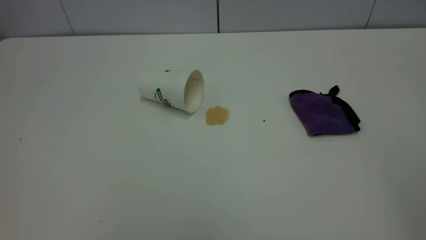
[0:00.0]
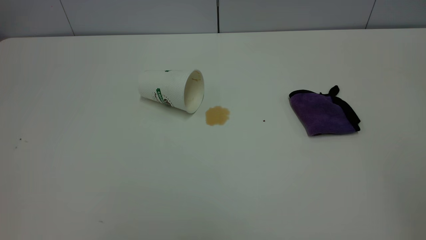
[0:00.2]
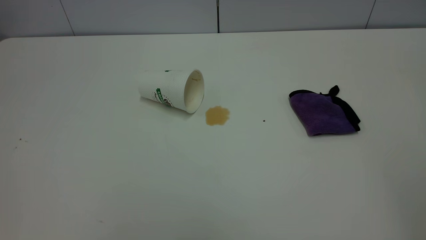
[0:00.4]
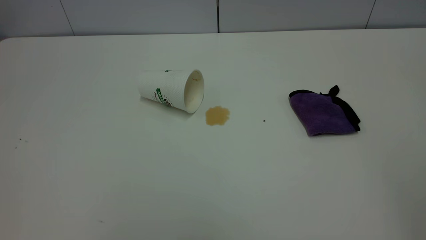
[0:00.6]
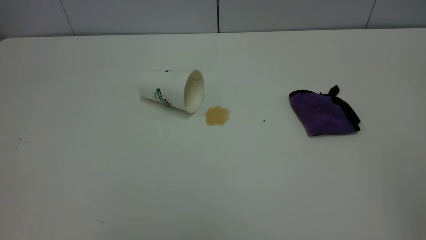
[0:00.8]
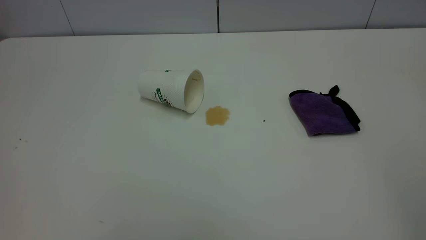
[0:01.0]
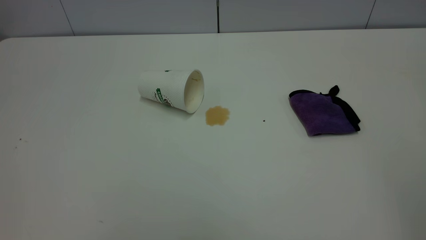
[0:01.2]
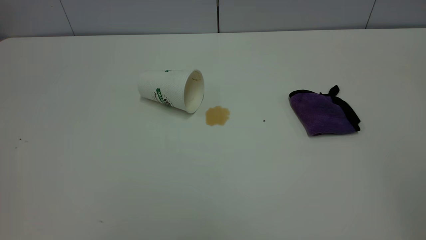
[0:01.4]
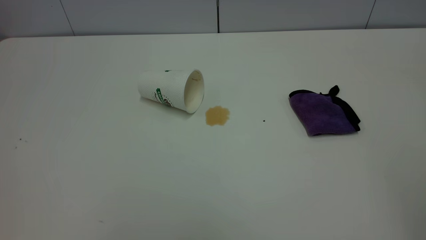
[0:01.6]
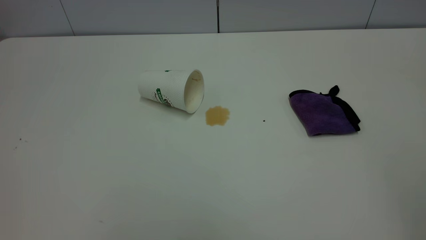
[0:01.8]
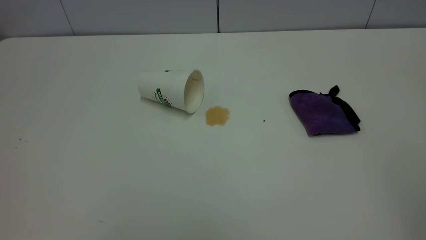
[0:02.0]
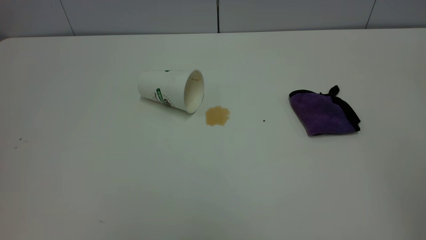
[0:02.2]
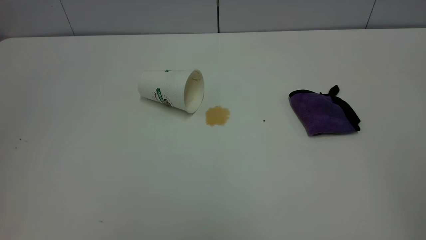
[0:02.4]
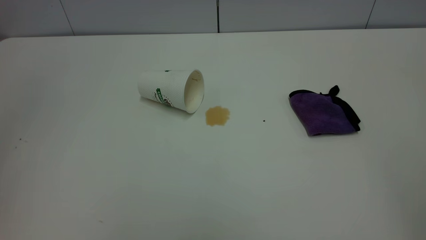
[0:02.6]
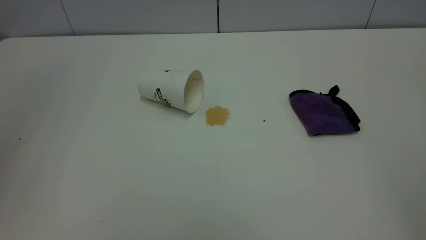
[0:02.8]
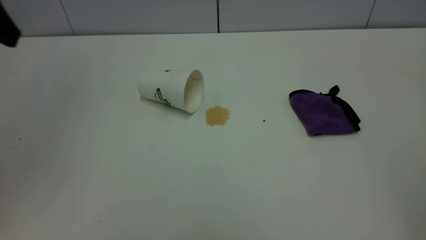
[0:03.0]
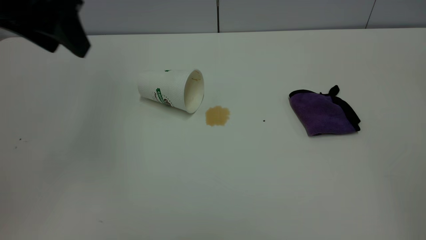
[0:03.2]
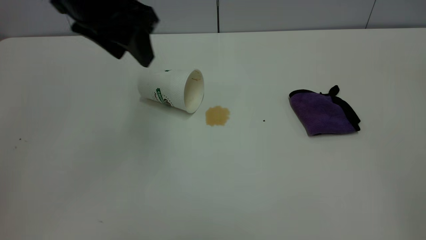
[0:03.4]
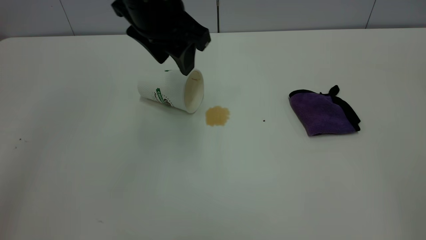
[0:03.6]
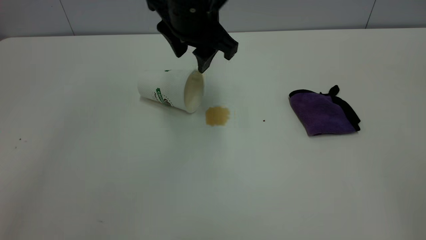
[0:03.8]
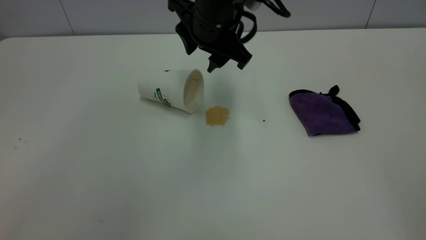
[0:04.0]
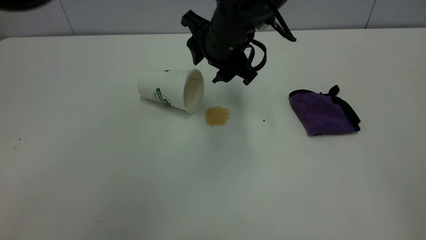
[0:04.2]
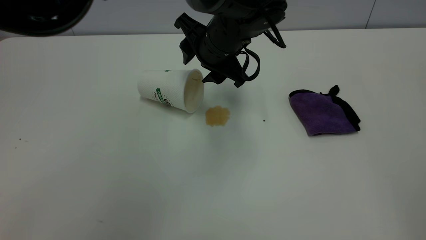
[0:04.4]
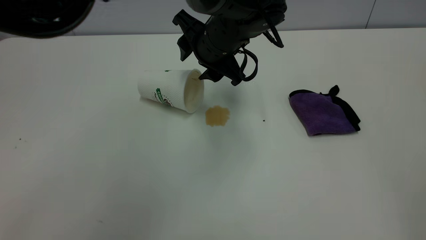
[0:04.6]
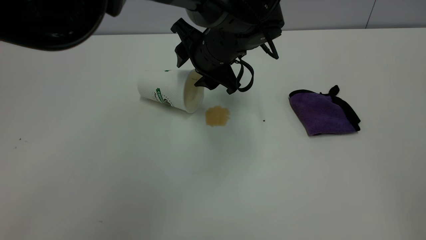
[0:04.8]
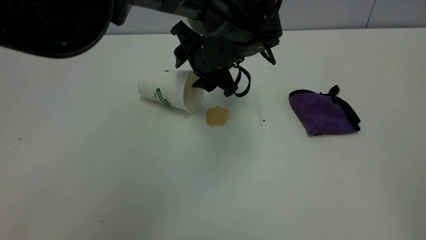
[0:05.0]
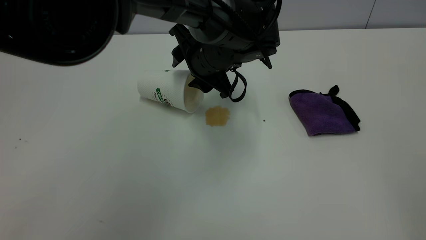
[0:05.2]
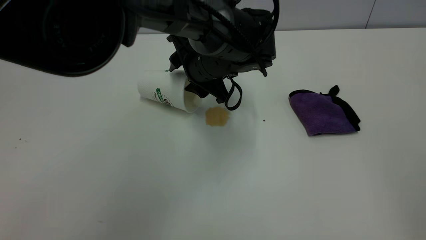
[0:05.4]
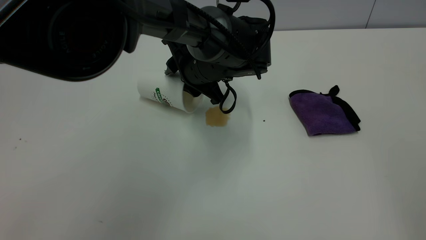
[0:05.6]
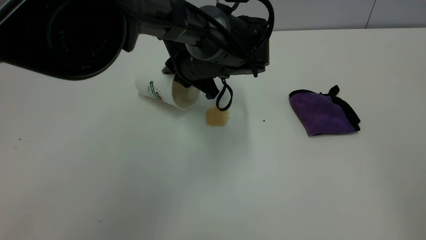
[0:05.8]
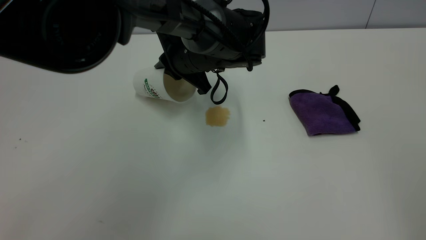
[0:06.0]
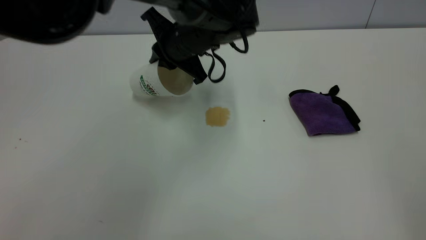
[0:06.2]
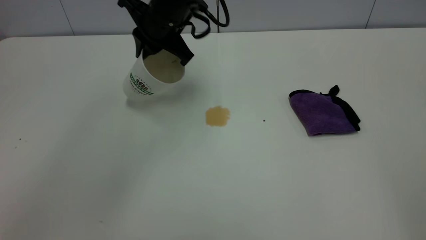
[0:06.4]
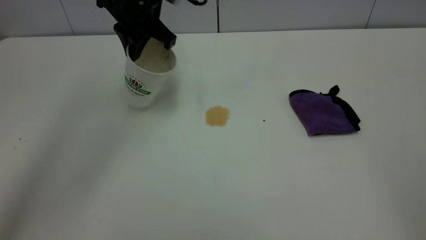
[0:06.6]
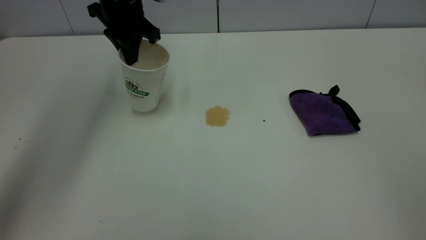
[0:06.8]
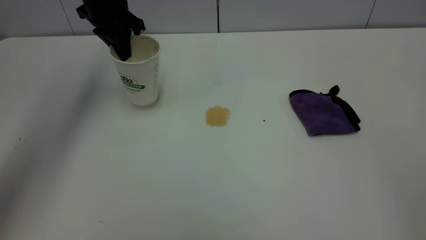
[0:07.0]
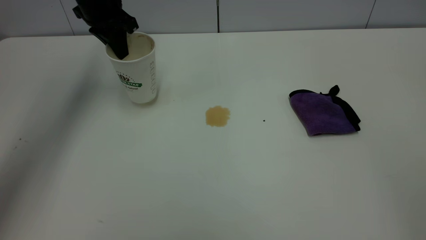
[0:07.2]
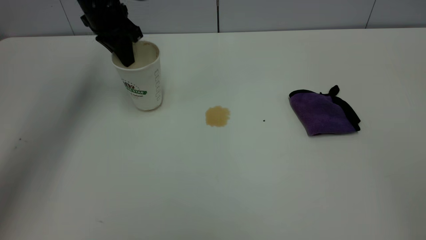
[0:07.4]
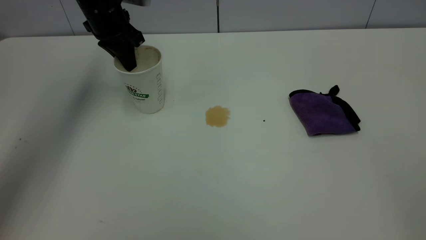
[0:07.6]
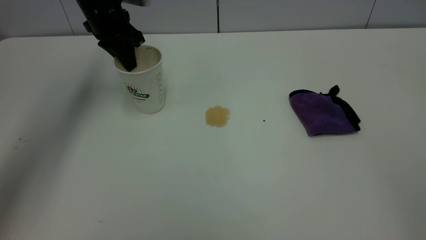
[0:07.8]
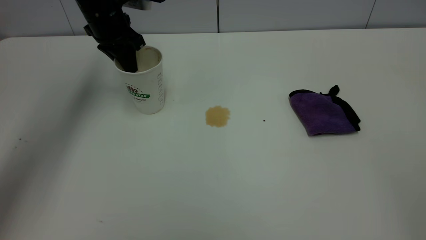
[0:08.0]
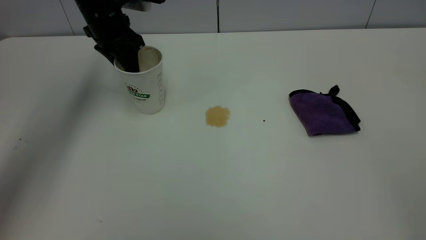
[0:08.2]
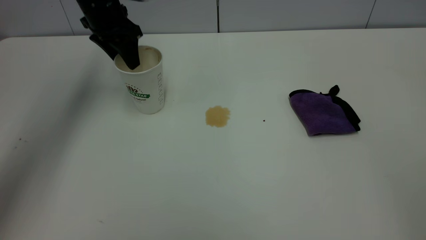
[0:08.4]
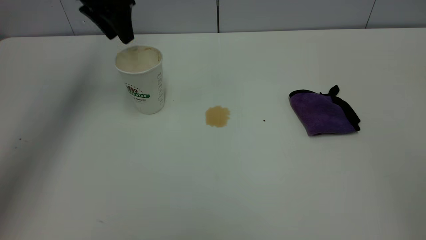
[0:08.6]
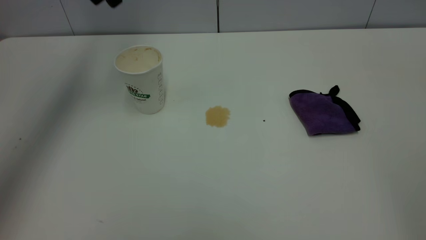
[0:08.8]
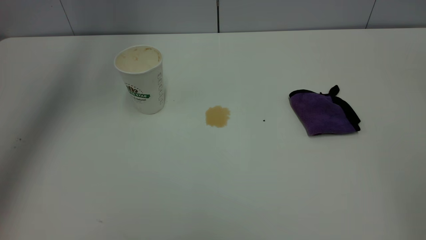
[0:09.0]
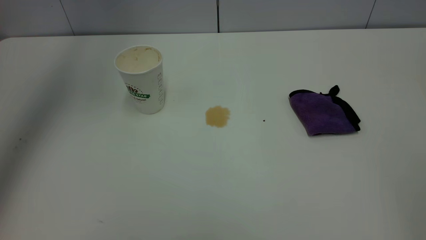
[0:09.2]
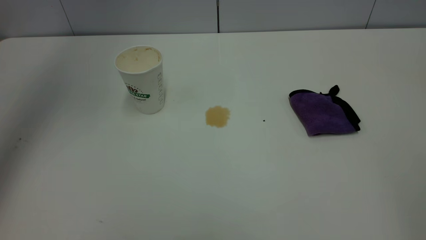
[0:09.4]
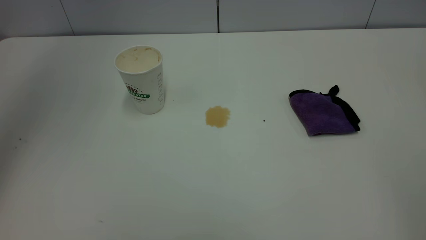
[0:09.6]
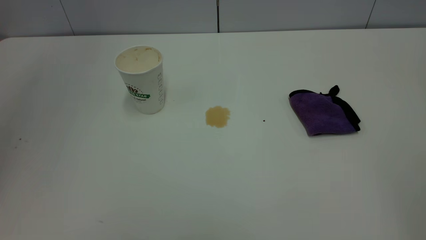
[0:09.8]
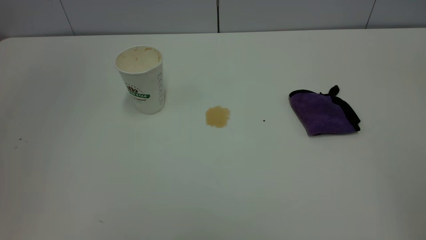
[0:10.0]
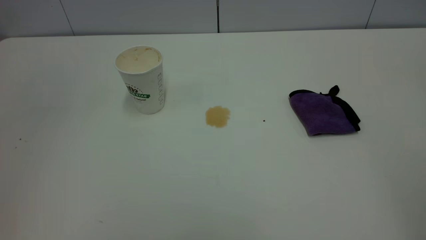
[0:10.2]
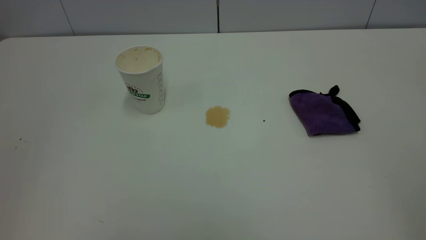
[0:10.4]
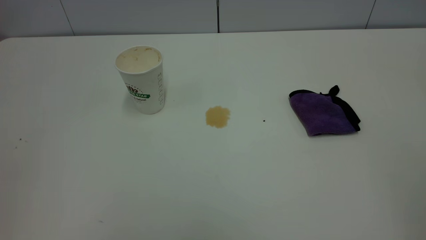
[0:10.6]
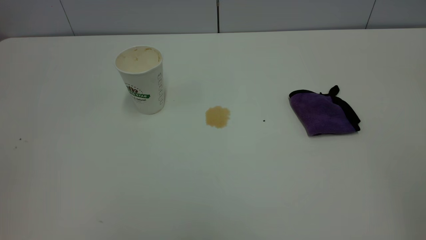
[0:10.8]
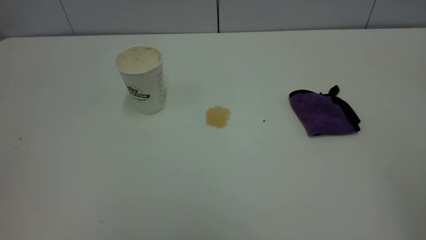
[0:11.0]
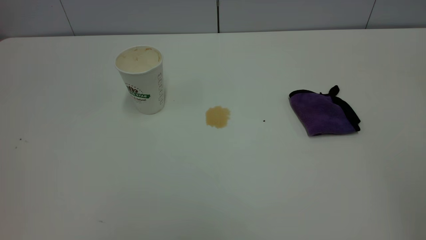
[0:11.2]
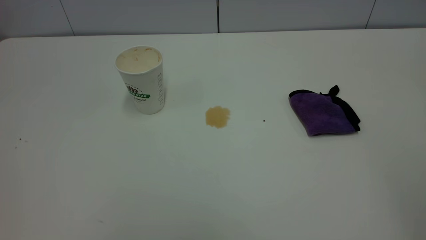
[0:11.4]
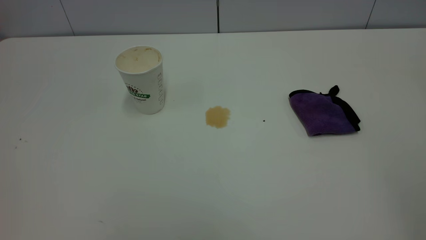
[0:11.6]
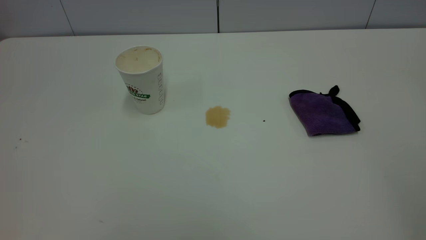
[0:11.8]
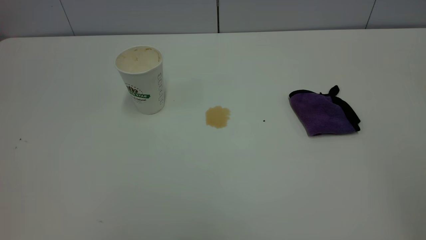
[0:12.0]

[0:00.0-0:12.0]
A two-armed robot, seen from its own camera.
Task of the whole recording: the left gripper pick up the fallen cup and place it upright, the right gripper grasp the purple rag and wipe the tea stain on the table, the right gripper put the purple rag back in its original position.
Step, 0:00.0 to 0:08.6: Stand the paper cup upright.
0:00.0 to 0:01.6: Neither gripper changes place.
0:03.0 to 0:04.4: The left gripper shifts approximately 35 cm to the right, downward and forward.
0:04.4 to 0:06.0: The left gripper moves some 5 cm, and closes.
0:06.0 to 0:07.6: The left gripper shifts about 20 cm to the left and forward.
0:07.6 to 0:09.0: The left gripper moves upward, approximately 20 cm, and opens up.
0:09.0 to 0:10.4: The left gripper moves backward, roughly 35 cm.

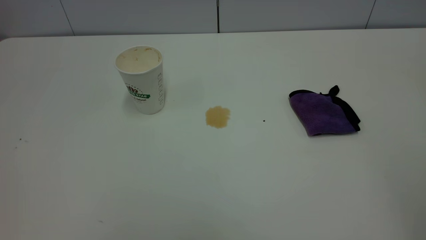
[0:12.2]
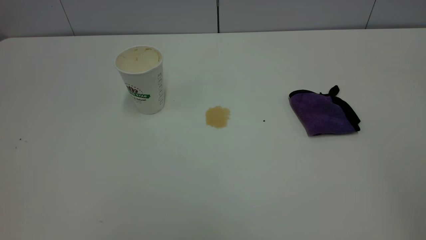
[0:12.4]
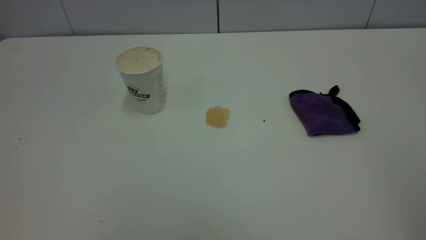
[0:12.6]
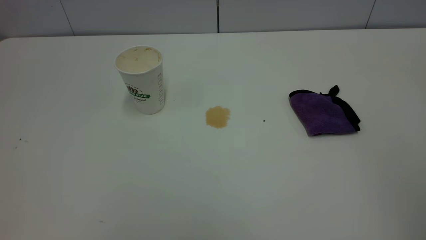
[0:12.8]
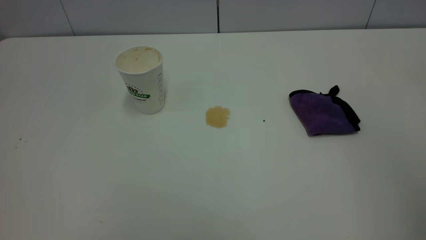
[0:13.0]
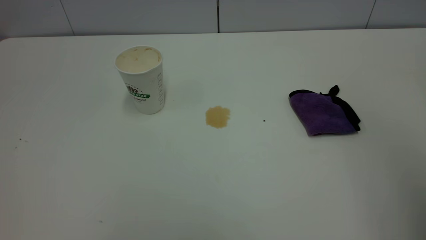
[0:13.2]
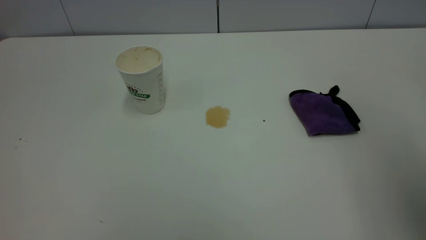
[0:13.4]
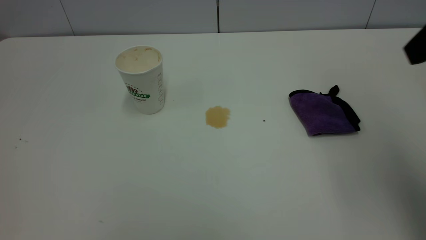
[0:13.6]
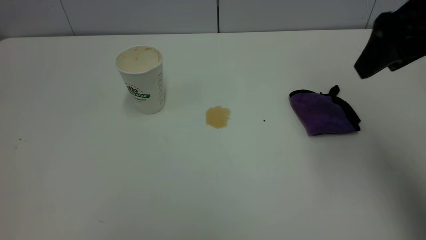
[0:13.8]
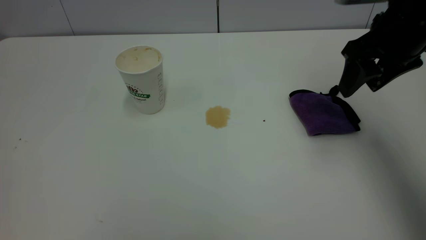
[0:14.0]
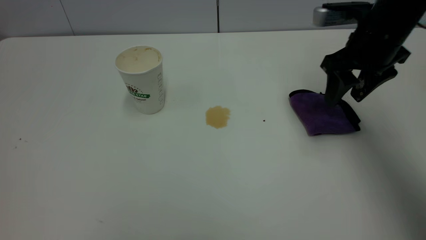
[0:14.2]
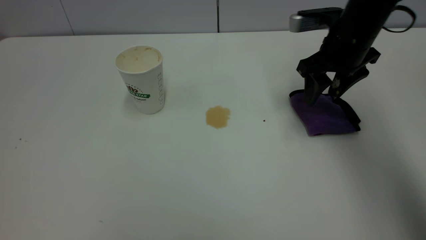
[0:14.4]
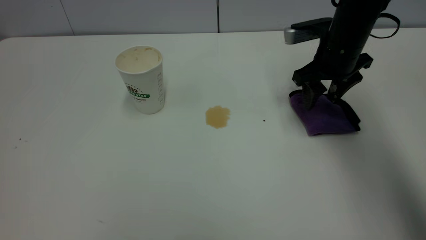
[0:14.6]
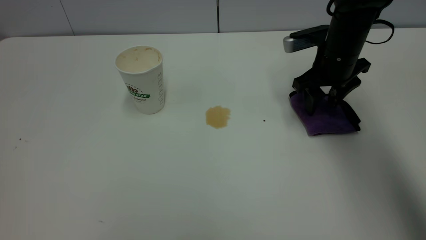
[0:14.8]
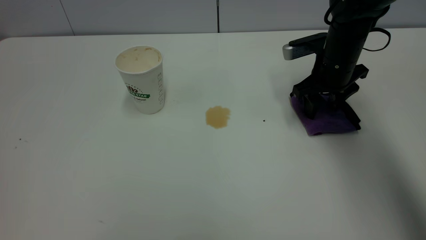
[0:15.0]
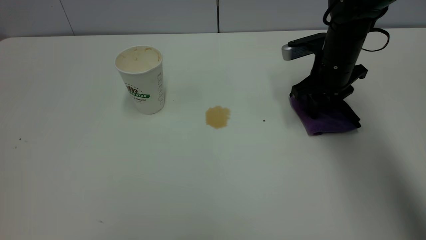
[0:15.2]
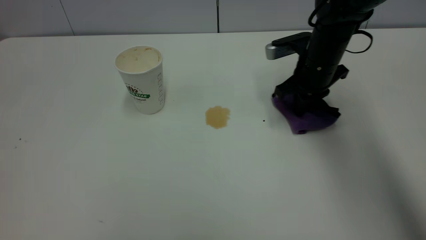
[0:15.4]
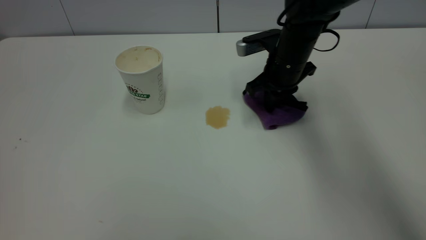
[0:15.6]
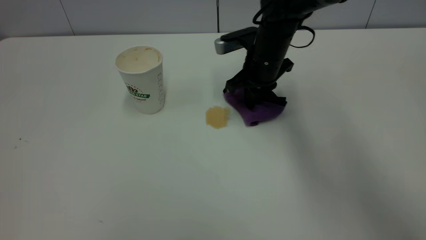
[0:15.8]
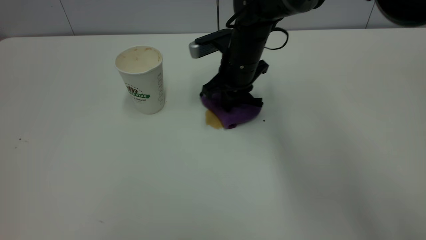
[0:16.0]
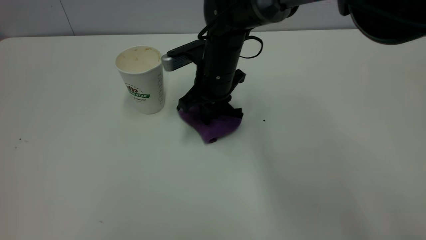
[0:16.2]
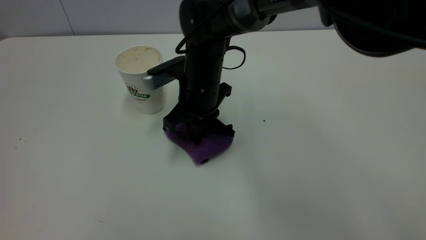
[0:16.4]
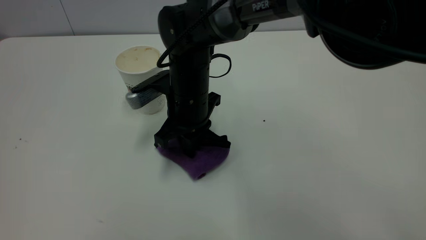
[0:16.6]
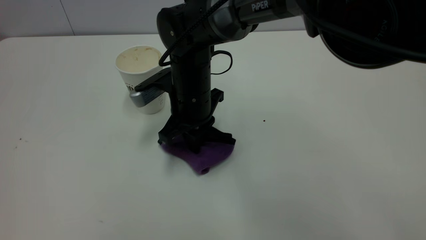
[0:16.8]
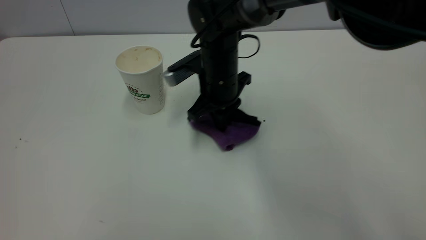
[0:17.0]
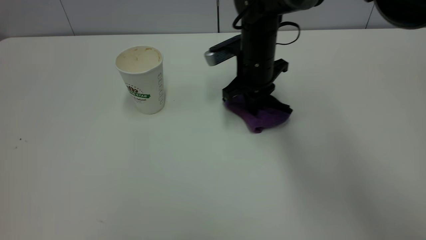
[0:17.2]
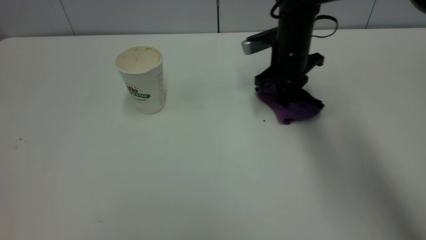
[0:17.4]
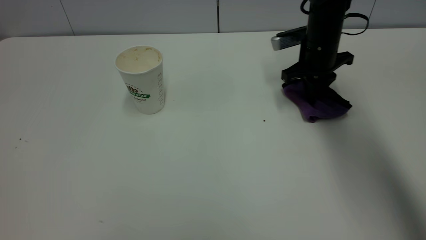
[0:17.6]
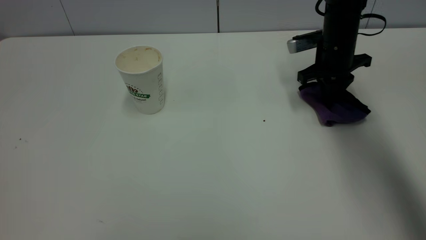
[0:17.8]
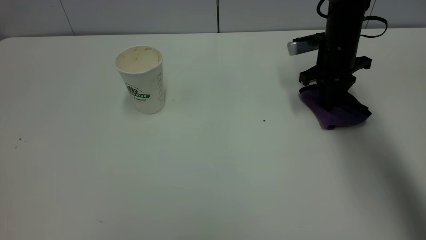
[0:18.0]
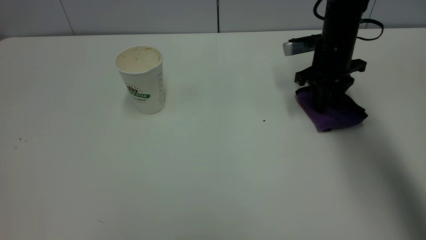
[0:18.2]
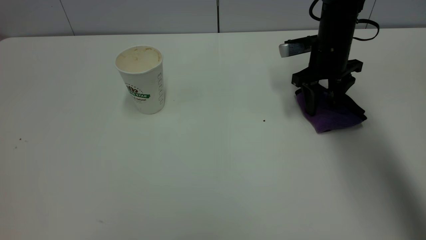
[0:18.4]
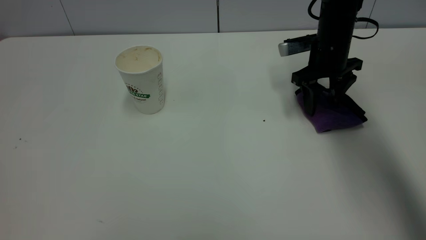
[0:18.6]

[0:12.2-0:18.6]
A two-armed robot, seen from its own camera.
Task of the whole recording: the left gripper pick up the fallen cup and place it upright, the right gripper grasp the purple rag and wipe the tea stain on the table, the right gripper put the purple rag back in its original position.
0:12.2 to 0:13.8: The right gripper heads forward, covering some 30 cm.
0:13.8 to 0:15.4: The right gripper travels downward, forward and to the left by some 25 cm, and closes.
0:15.4 to 0:17.0: The right gripper is displaced to the left by about 15 cm.
0:17.0 to 0:18.6: The right gripper is displaced to the right by about 20 cm, and opens.
